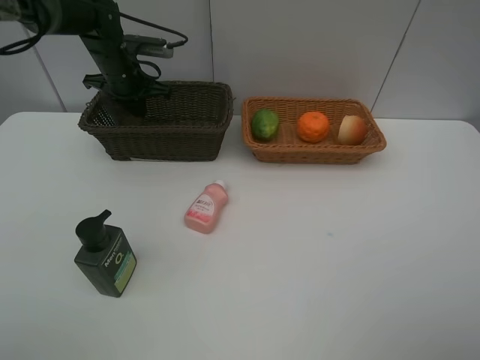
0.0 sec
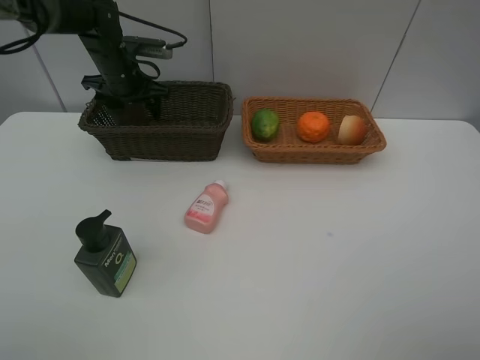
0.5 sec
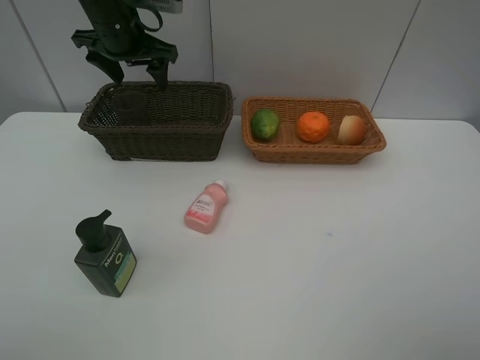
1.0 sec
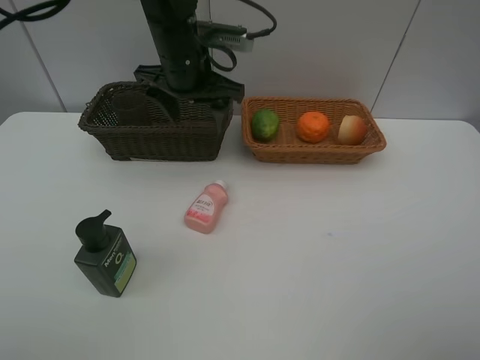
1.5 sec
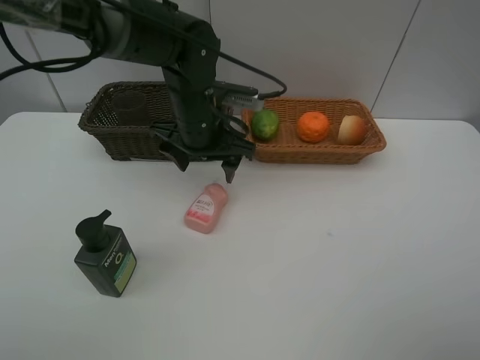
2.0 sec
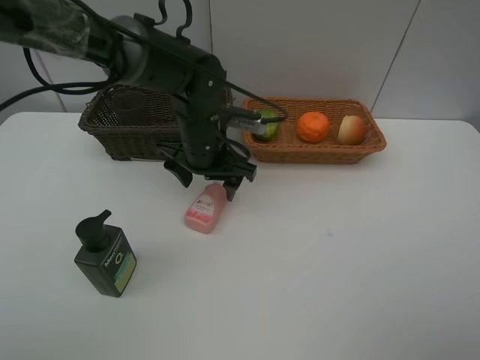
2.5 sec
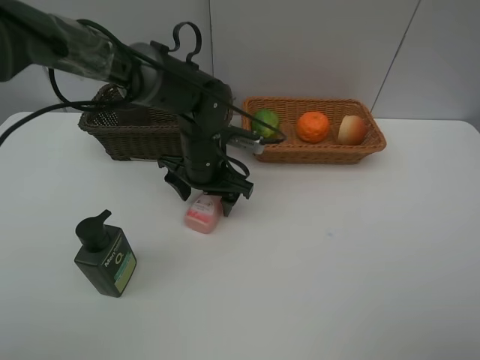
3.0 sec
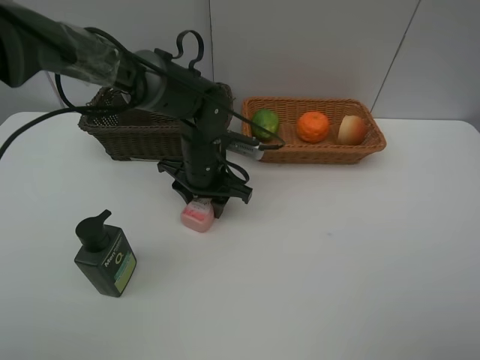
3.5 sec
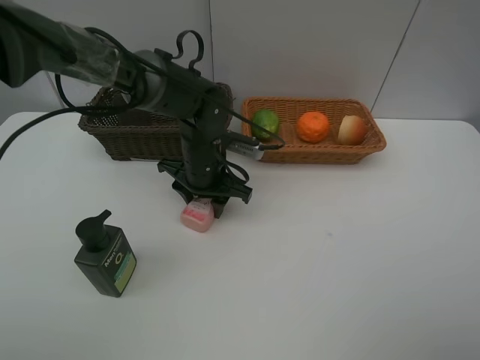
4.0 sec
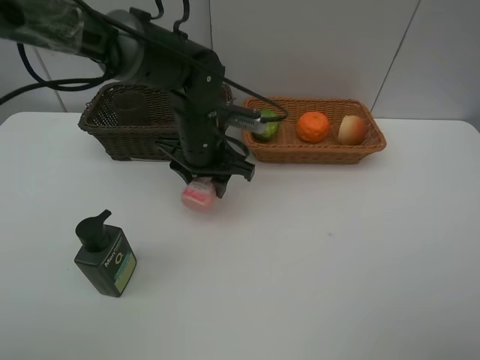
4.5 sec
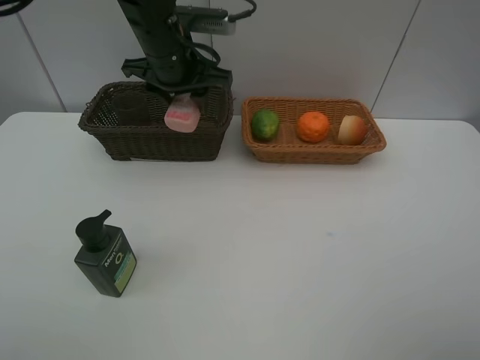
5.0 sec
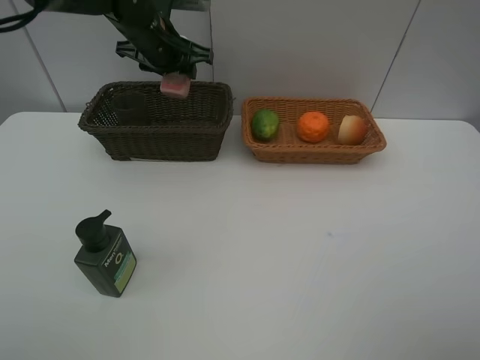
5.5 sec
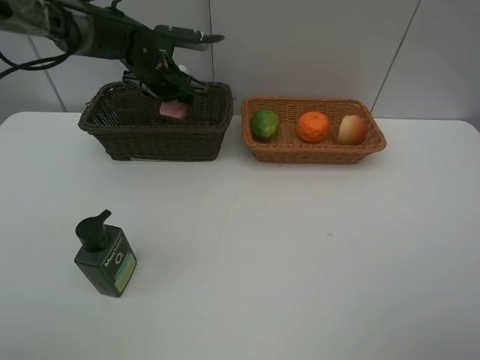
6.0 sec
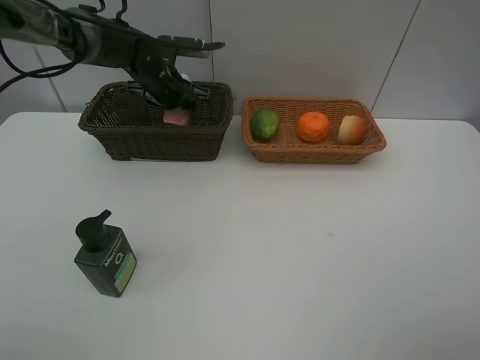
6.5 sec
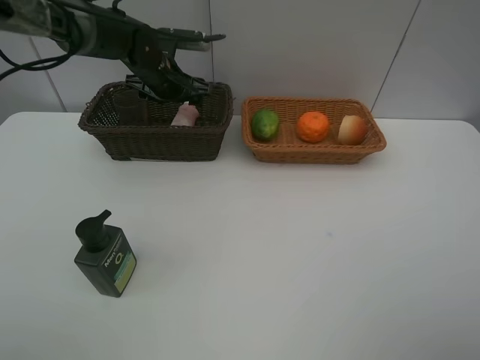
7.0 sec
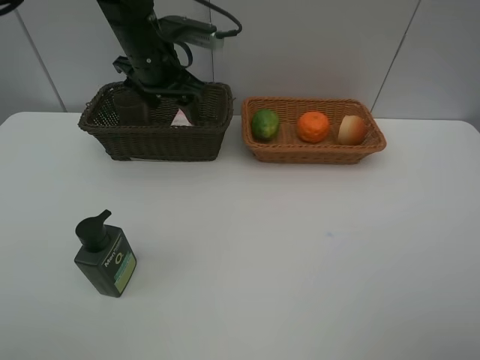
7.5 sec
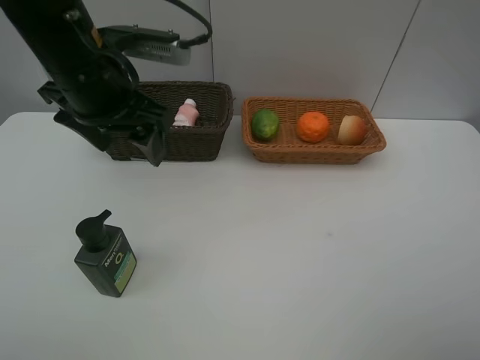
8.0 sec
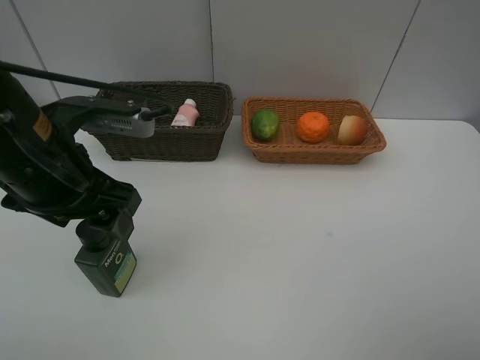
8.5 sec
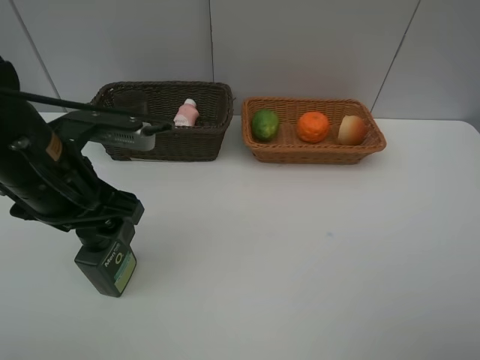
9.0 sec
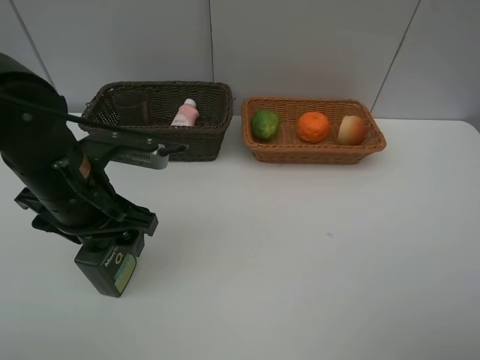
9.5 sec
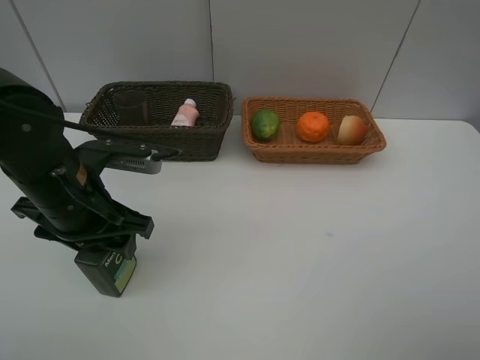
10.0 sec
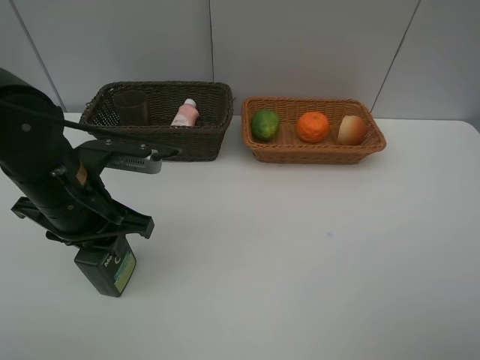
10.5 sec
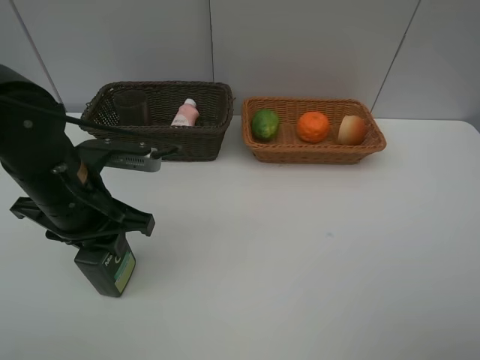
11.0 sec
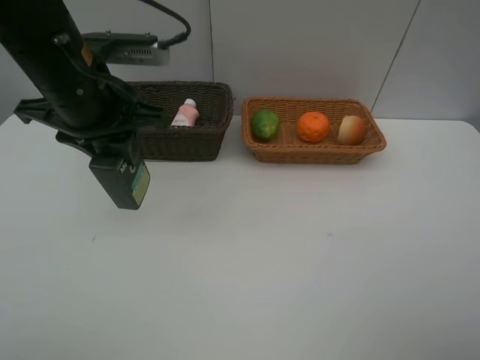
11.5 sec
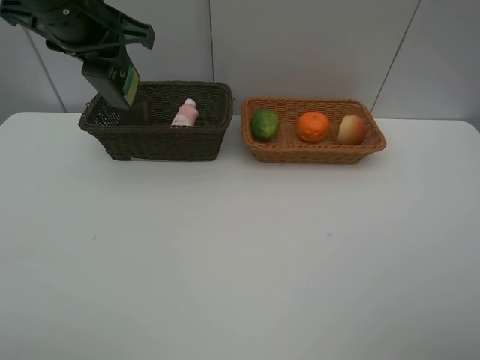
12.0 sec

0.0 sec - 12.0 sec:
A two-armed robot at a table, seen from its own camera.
Task of the whole recording: place multiple objects separately in different baskets.
Step, 1.0 sec - 4.5 sec: Pick up the laundry detergent with left gripper.
Step, 5.0 sec - 7.0 sec: Place the laundry detergent in the dark basket with left gripper.
Step, 7.5 sec - 11.0 sec: Pick up the facial cleanser with left gripper.
0.0 sec - 2.0 sec: The left gripper travels to the right and backward by roughly 20 cm, and opens.
2.0 sec - 4.0 sec: The left gripper travels downward by about 5 cm, and closes its fingers.
4.0 sec - 6.0 sec: The left gripper travels forward, to the left and upward by roughly 20 cm.
6.0 sec - 8.0 sec: The left gripper is displaced backward and upward by approximately 25 cm, and opens.
8.0 sec - 10.0 sec: The left gripper travels downward and backward by about 10 cm.
10.0 sec - 12.0 sec: The left gripper moves upward and forward, roughly 20 cm.

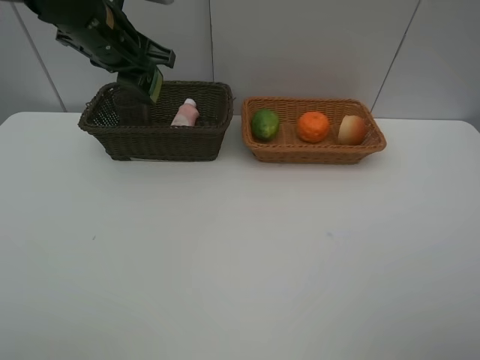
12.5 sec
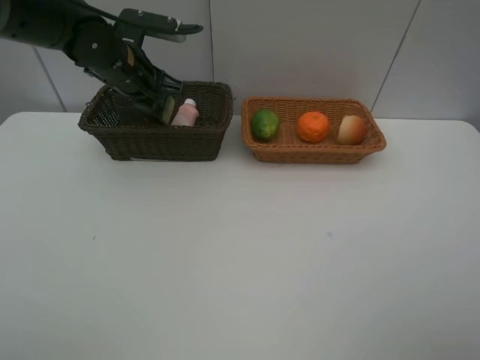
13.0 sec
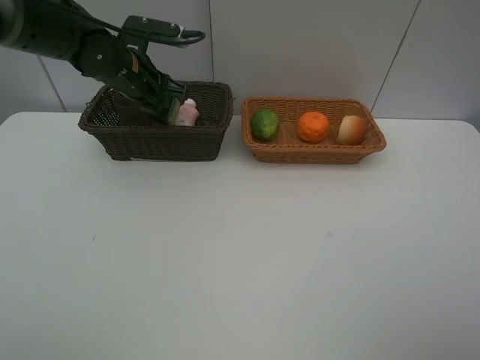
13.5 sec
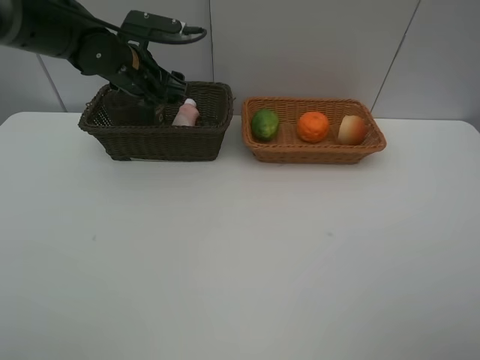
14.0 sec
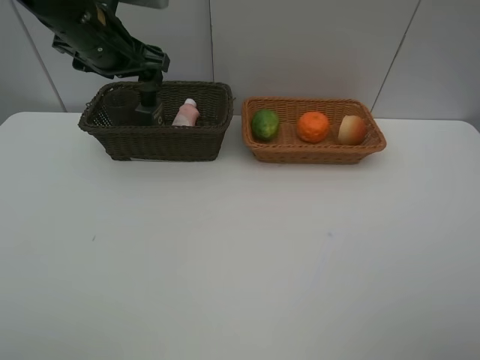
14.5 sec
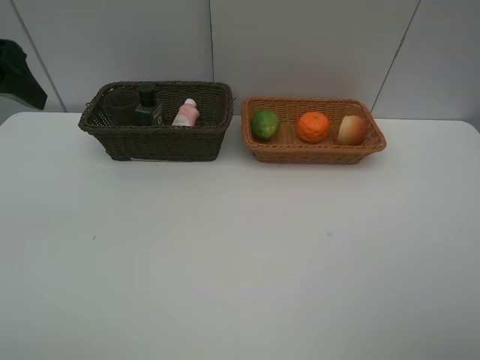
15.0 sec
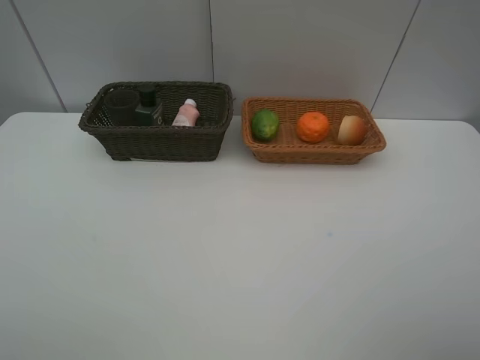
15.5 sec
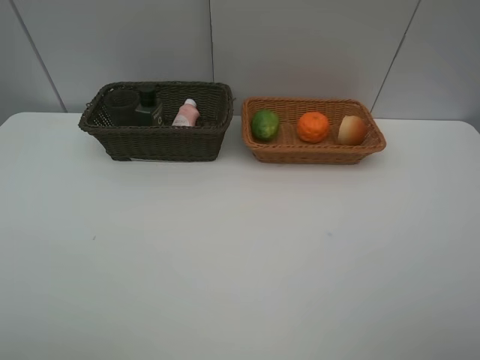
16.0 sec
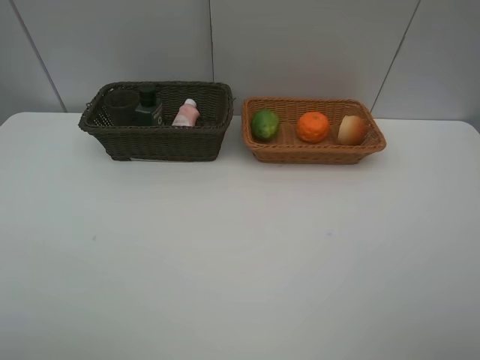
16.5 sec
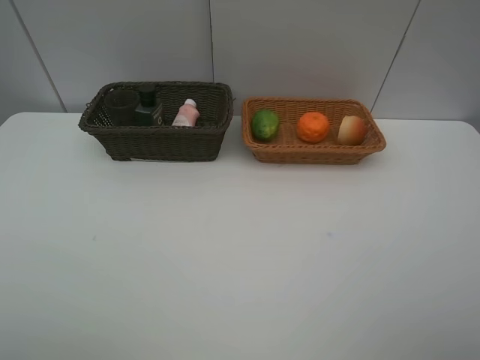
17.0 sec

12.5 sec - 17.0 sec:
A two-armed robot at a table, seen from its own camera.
Task of the whole recording: place multiple objects separately in different baskets.
Step, 12.5 sec - 14.0 sec: Place the facial cleanser in the dark basket with left gripper.
12.5 sec - 14.5 sec: The left gripper travels downward and back again, some 5 cm each way, and opens its fingers.
14.5 sec - 17.0 sec: The left gripper goes approximately 40 cm backward.
